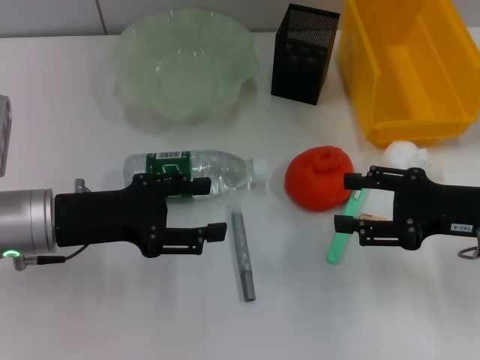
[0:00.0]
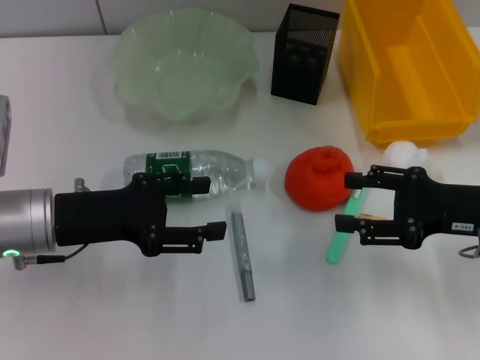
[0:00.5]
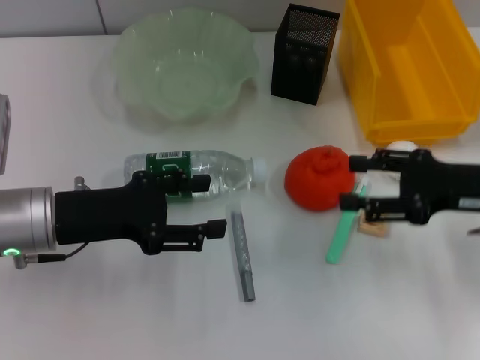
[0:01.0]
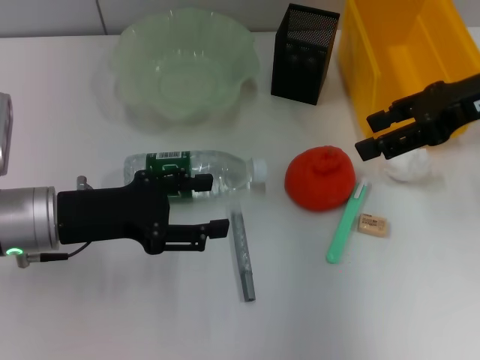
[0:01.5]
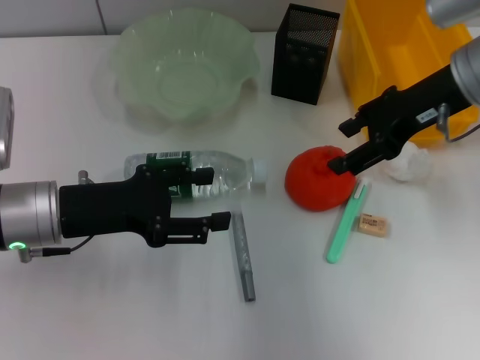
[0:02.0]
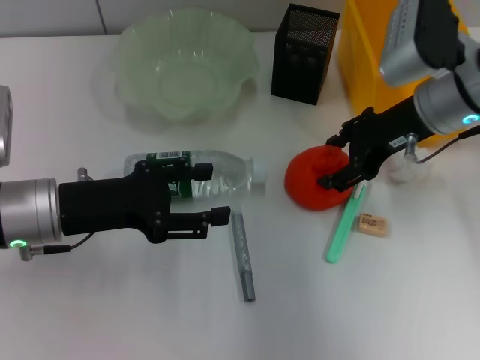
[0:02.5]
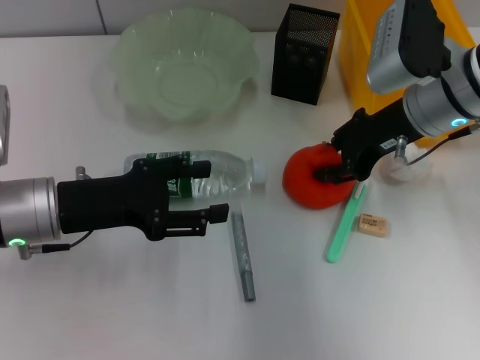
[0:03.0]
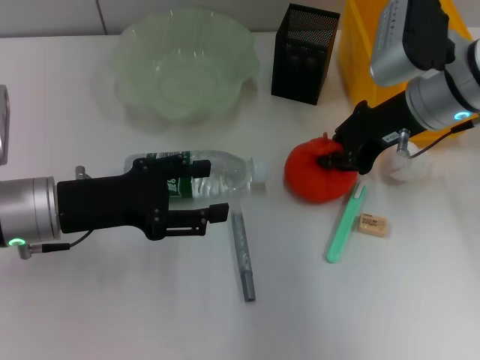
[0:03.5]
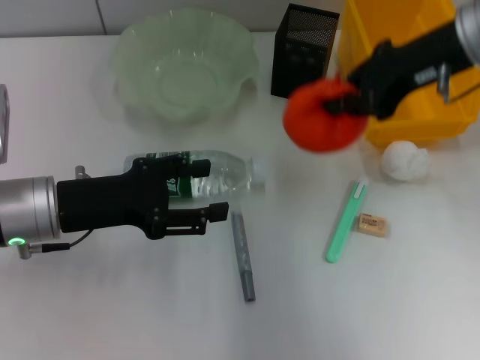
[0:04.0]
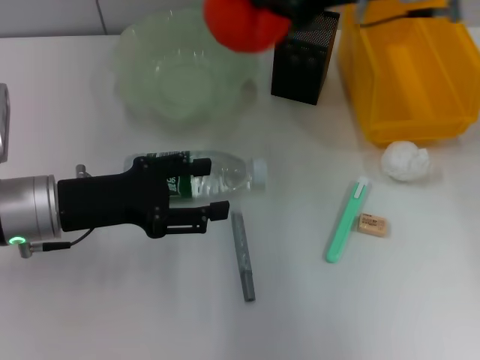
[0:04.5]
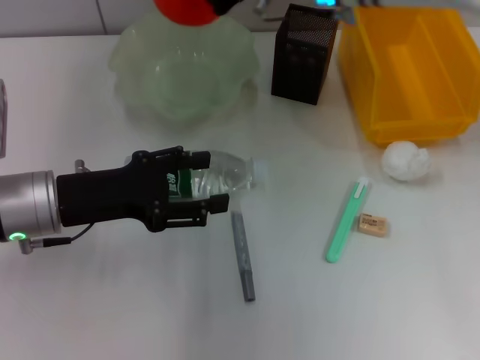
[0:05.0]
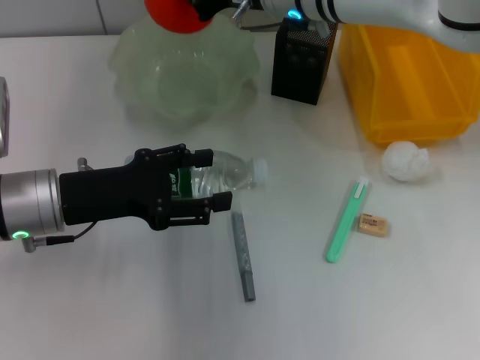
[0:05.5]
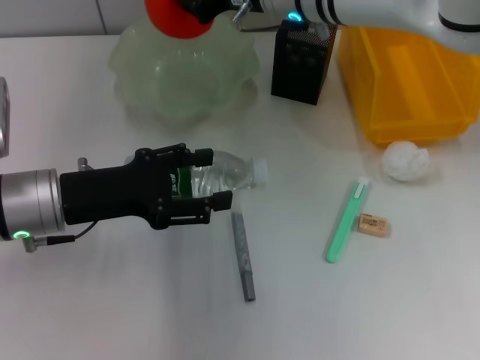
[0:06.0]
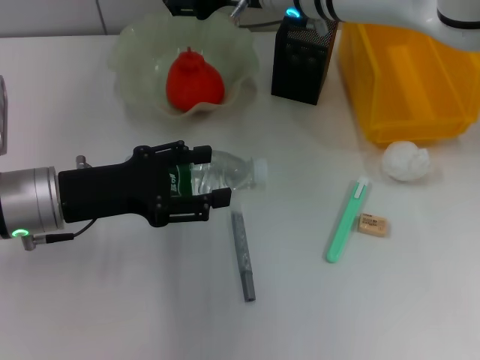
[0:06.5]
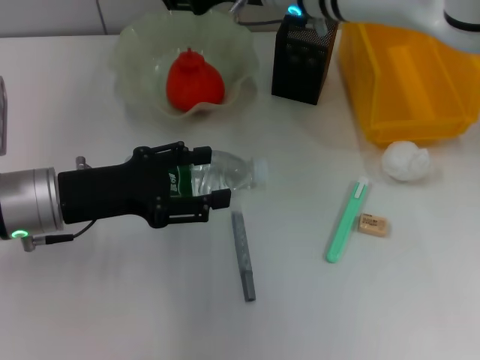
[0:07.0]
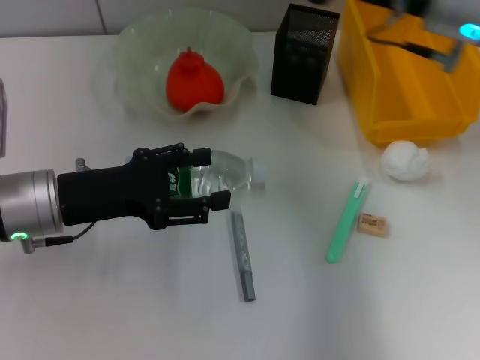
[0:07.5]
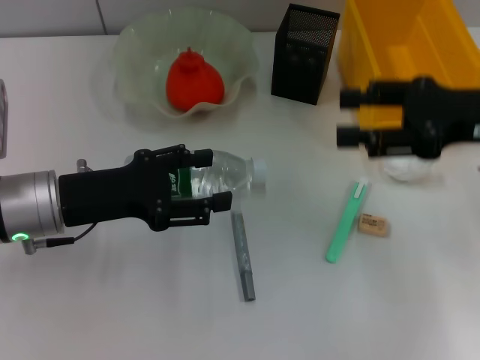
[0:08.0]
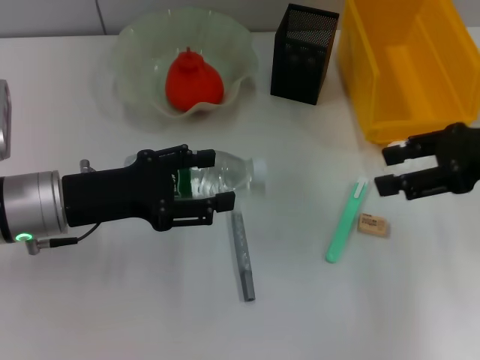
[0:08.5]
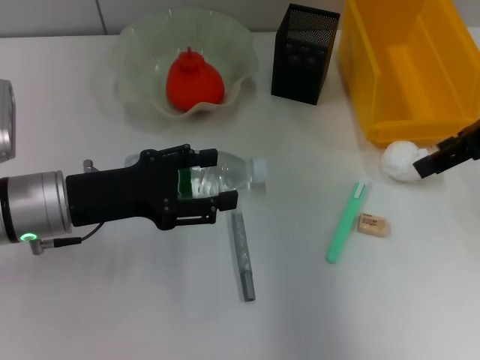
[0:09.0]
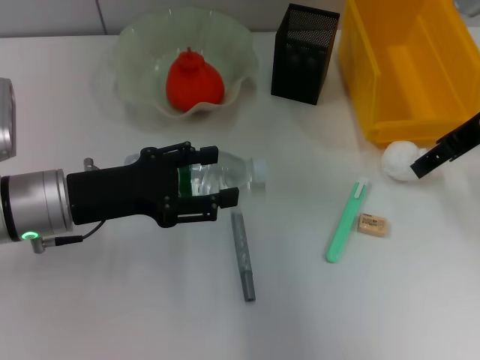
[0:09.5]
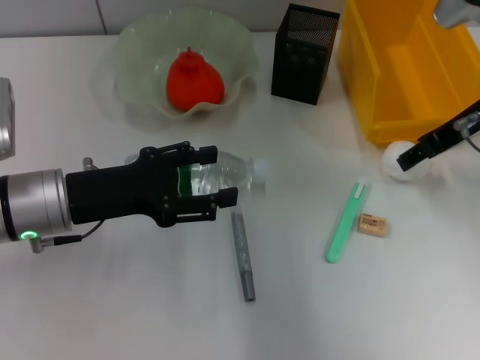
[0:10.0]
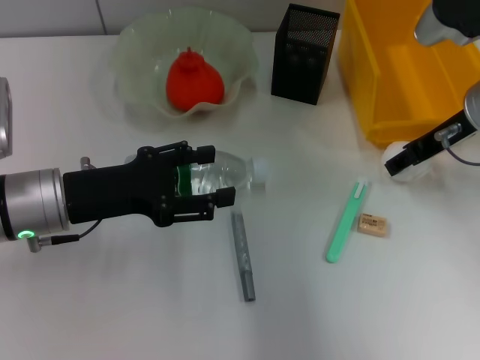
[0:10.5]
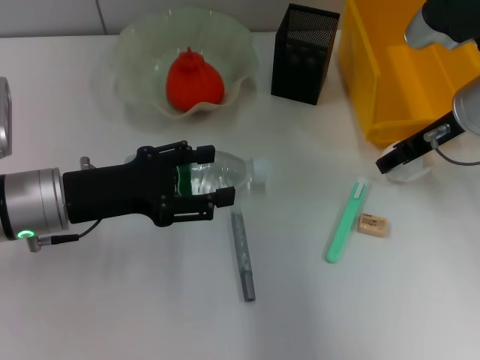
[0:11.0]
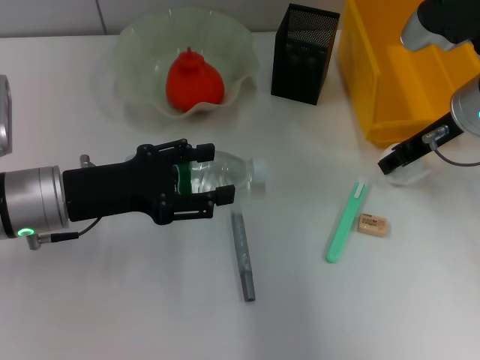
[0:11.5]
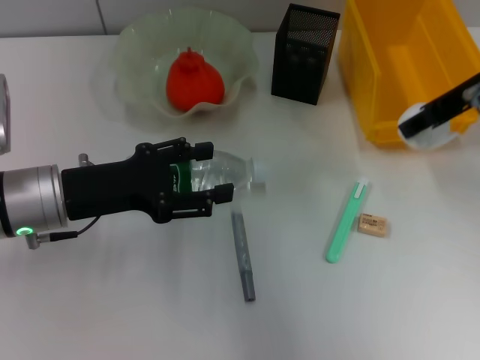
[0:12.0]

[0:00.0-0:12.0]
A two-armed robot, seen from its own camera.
Step, 0:00.0 to 0:02.5: Grab the orange with the right hand.
Step, 0:03.0 to 0:06.0: Place the orange into the fruit bowl with the right hand.
Step, 0:06.5 to 0:11.5: Grab the paper ball with the right hand.
0:00.0 to 0:02.0: The right gripper goes approximately 15 cm upward, forward and to the left.
0:02.0 to 0:04.0: The right gripper closes its fingers.
0:04.0 to 0:06.0: The right gripper moves to the left and forward, roughly 15 cm.
0:06.0 to 0:08.0: The right gripper shifts about 25 cm to the right and backward, and opens its fingers.
0:08.0 to 0:10.0: The right gripper is displaced forward by approximately 5 cm.
0:10.0 to 0:12.0: The right gripper shifts some 5 cm upward.

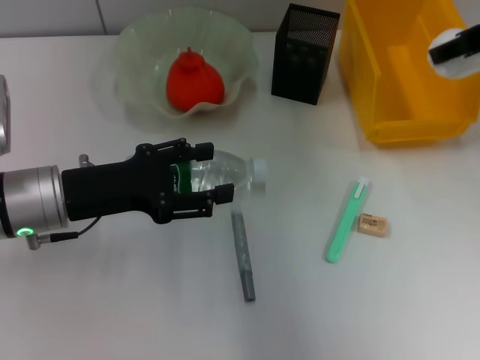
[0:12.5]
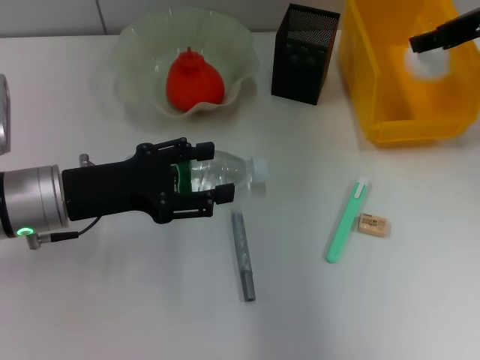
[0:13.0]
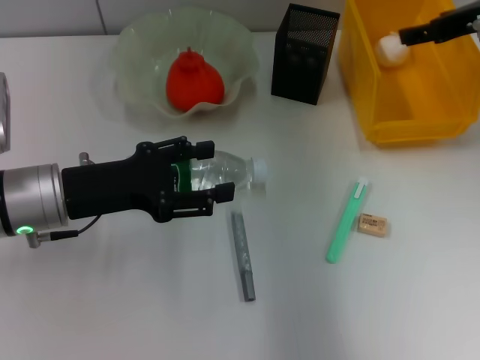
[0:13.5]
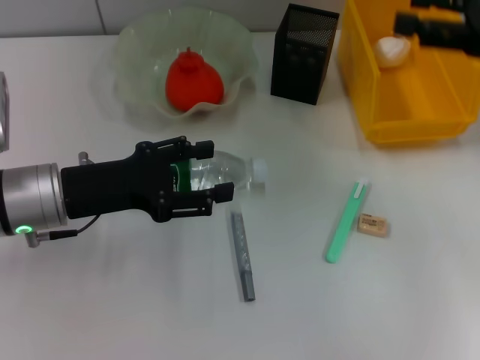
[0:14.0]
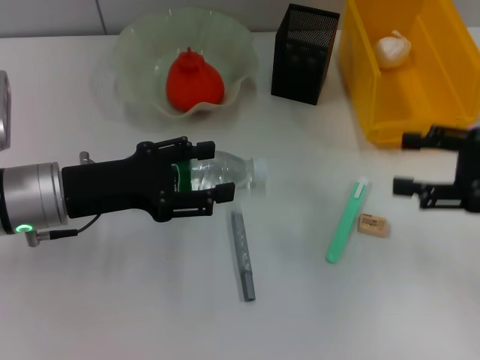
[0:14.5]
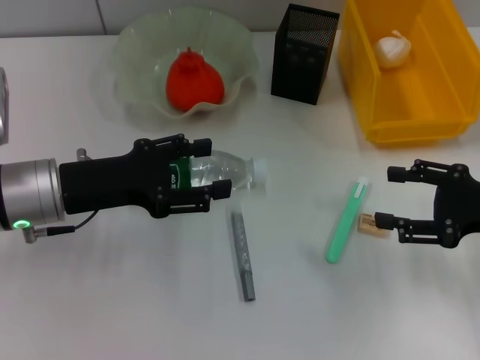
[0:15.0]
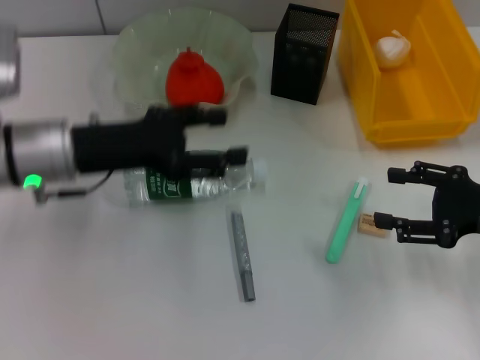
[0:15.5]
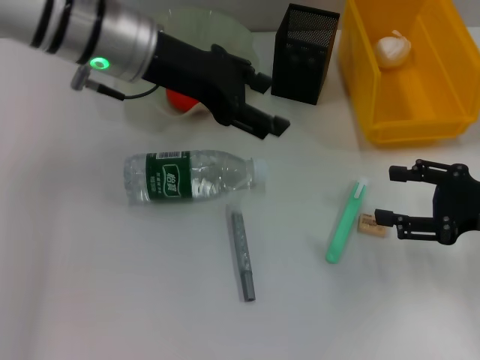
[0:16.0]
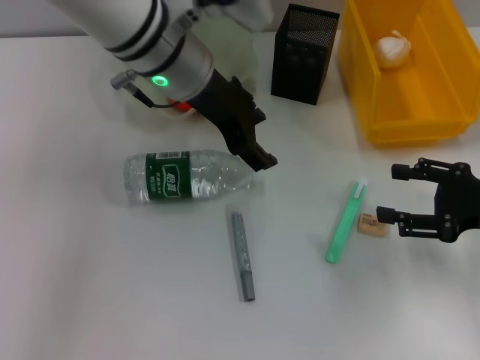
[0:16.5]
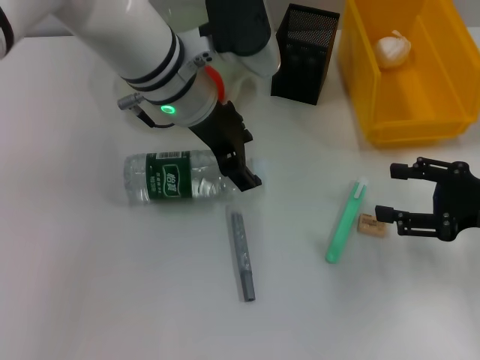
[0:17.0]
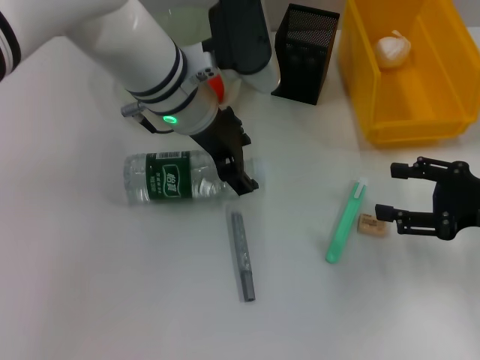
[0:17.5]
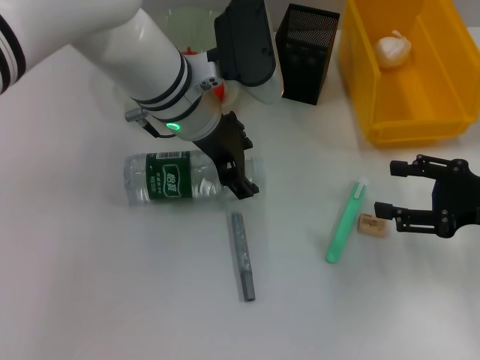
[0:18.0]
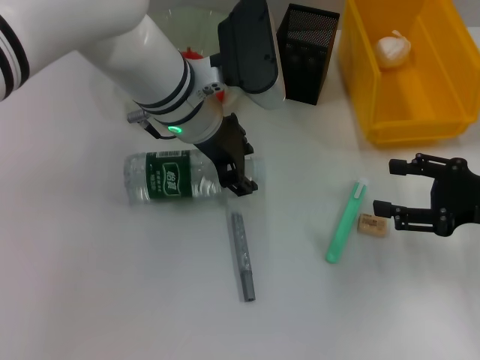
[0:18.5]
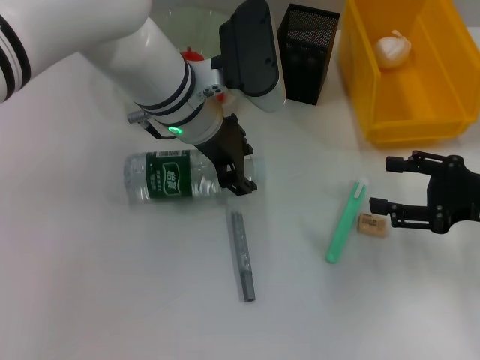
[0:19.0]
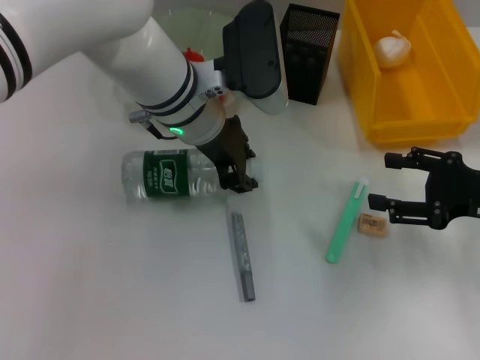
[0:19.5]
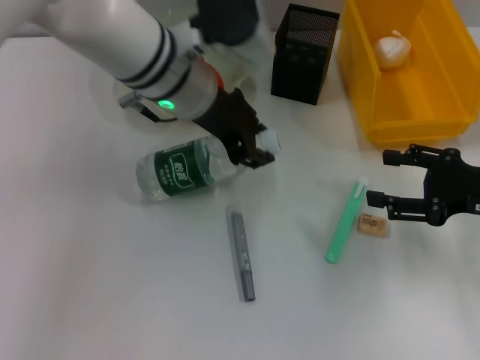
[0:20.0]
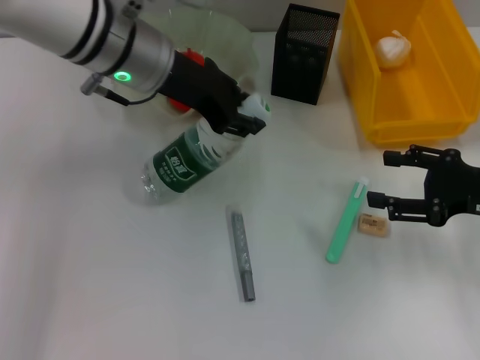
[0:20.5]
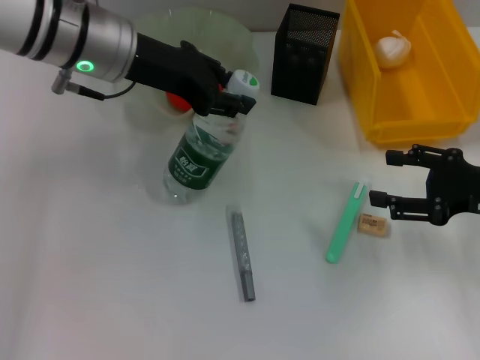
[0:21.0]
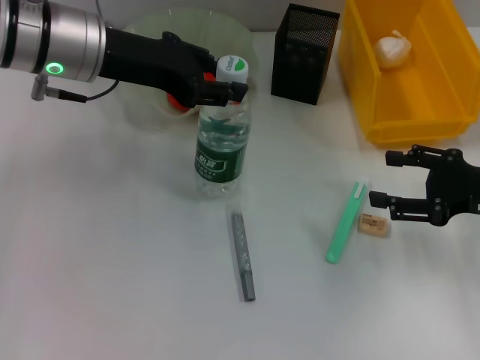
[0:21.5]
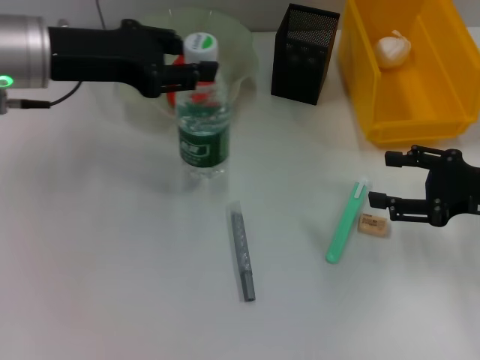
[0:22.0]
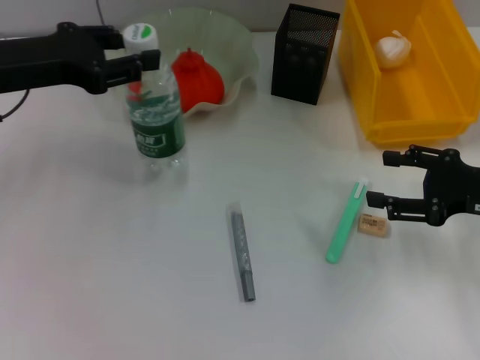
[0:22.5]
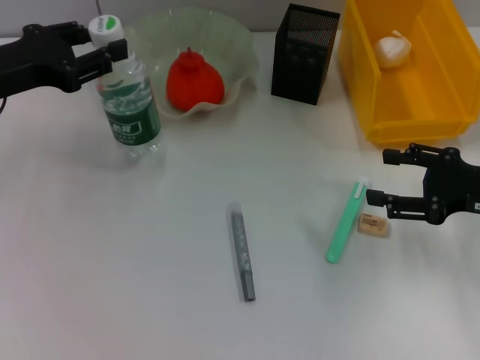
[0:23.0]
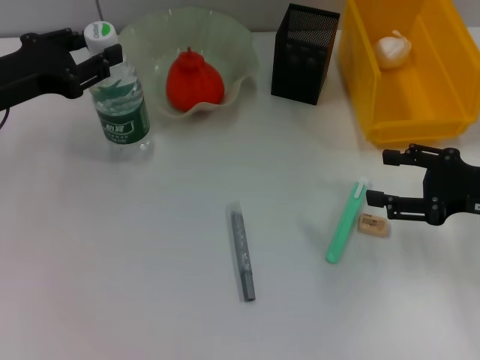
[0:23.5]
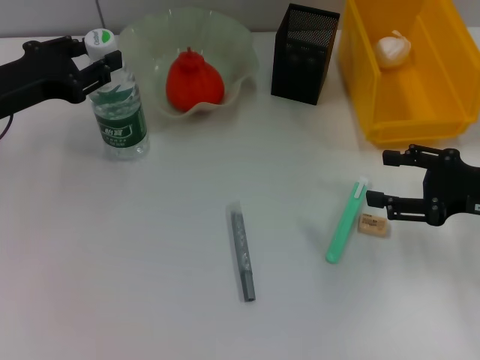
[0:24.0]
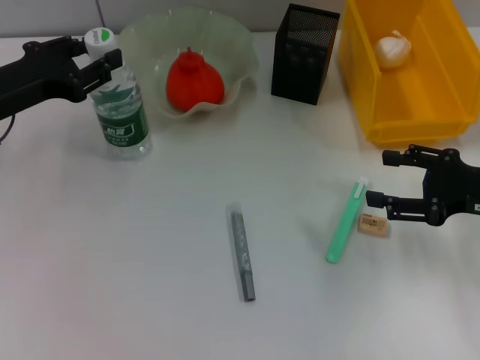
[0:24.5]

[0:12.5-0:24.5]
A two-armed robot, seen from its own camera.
Step, 0:13.5 to 0:19.5: Grab the water bottle with the left hand.
0:12.5 to 0:14.5: The right gripper heads downward, backward and to the right, covering about 20 cm.
0:14.5 to 0:16.5: The left gripper travels to the right, forward and upward by approximately 20 cm.
0:16.5 to 0:18.5: The left gripper shifts by some 5 cm.
0:18.5 to 0:20.5: The left gripper shifts about 5 cm to the left, and closes its fingers.
0:20.5 to 0:22.5: The left gripper is displaced to the left by some 15 cm.
0:22.5 to 0:24.5: The left gripper goes roughly 5 cm downward.

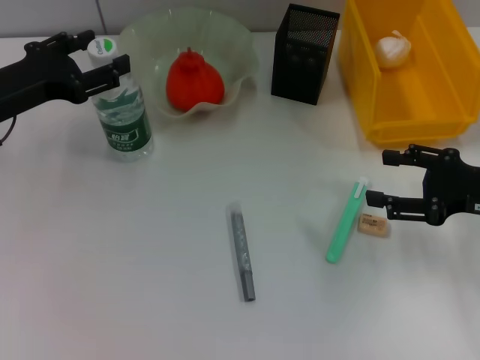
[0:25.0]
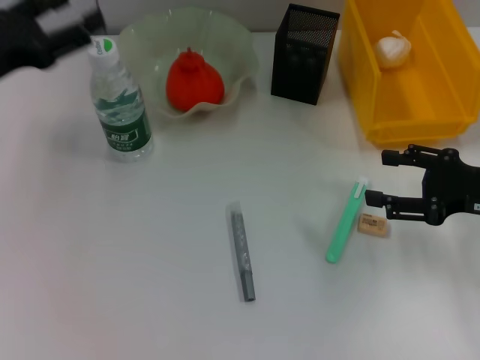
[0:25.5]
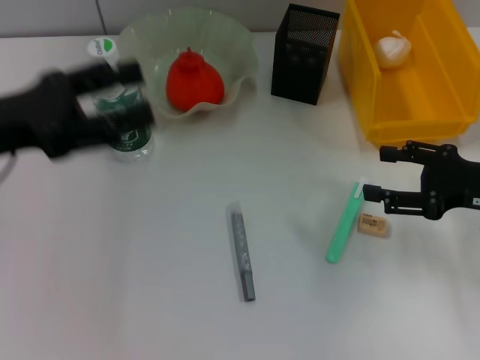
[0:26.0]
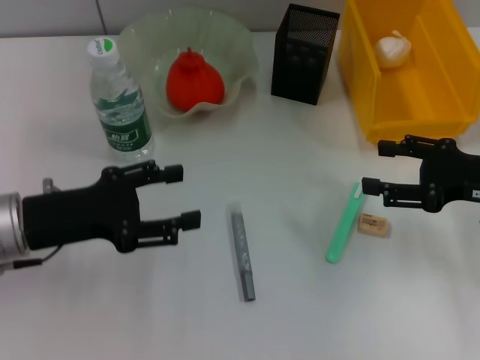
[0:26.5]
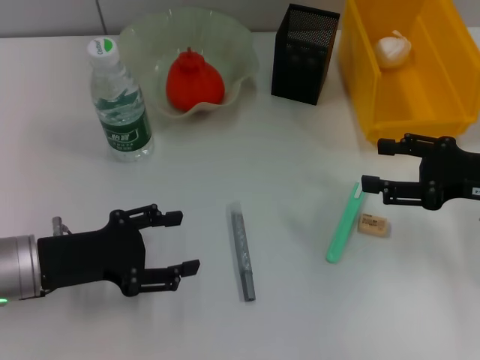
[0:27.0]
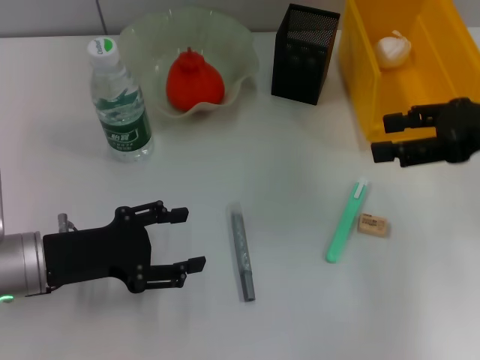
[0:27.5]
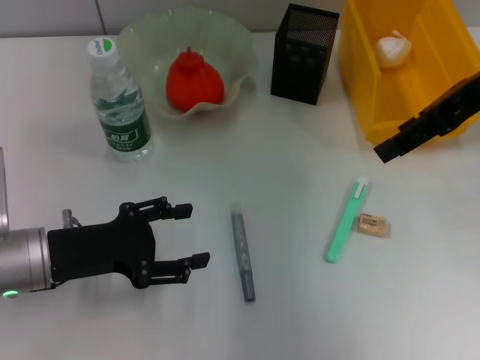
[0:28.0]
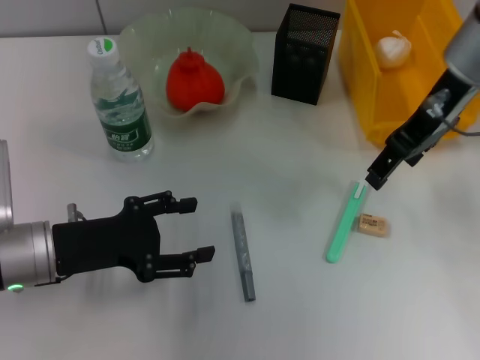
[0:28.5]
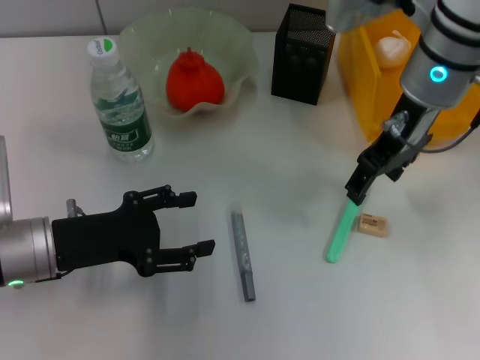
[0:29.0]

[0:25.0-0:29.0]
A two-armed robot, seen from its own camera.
0:25.0 to 0:27.0: The left gripper heads backward and downward, covering roughly 10 cm, and opens up.
0:27.0 to 0:29.0: The right gripper moves to the left, upward and forward, approximately 20 cm.
